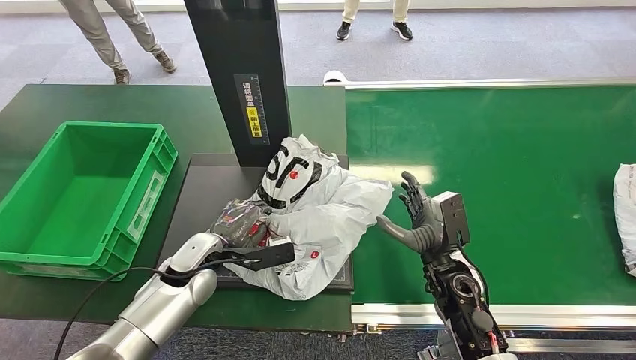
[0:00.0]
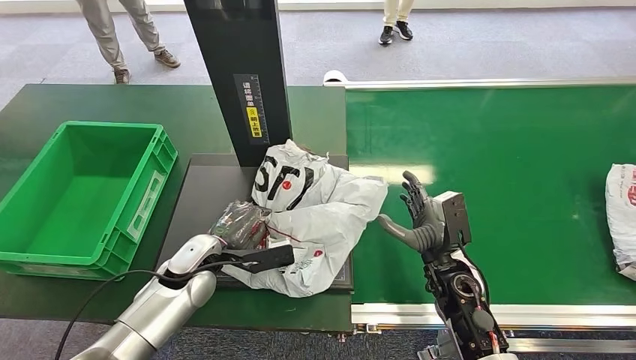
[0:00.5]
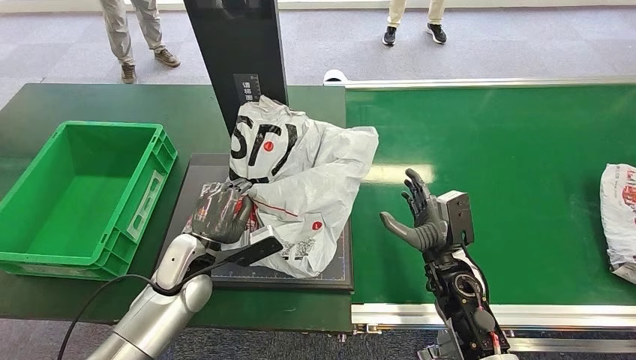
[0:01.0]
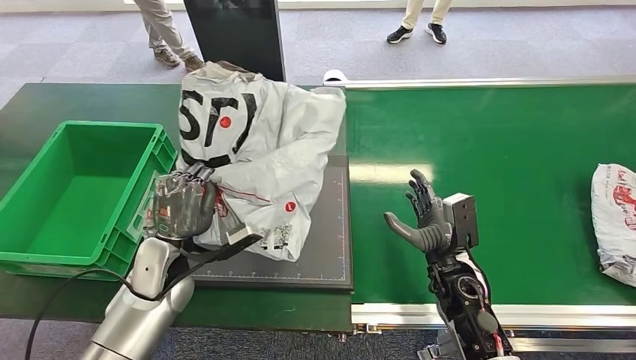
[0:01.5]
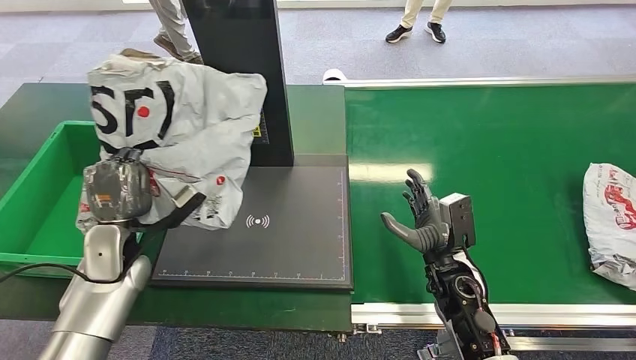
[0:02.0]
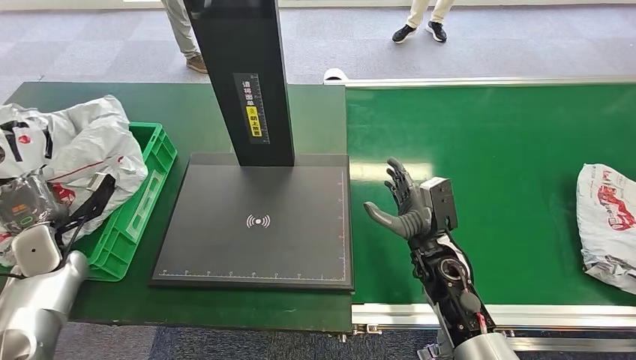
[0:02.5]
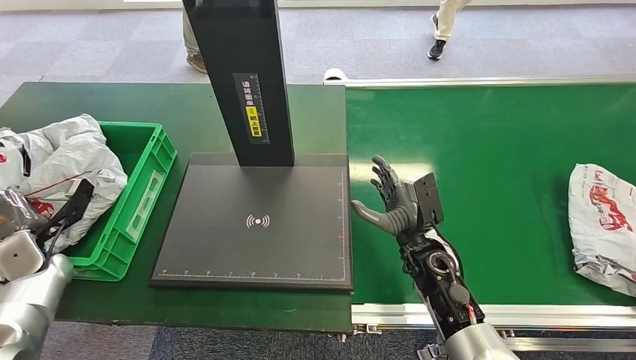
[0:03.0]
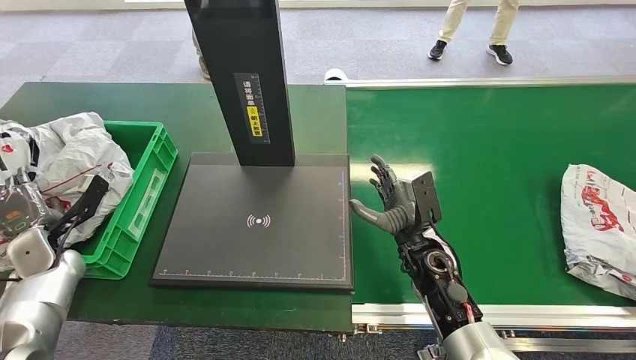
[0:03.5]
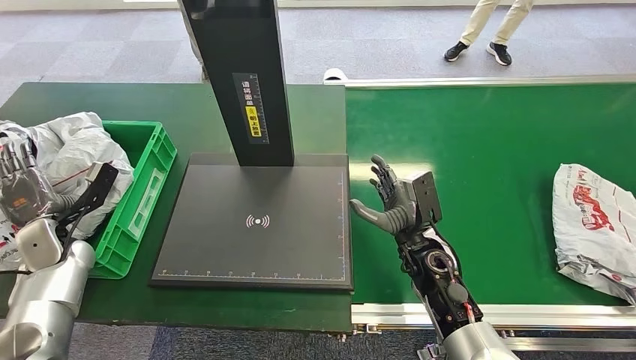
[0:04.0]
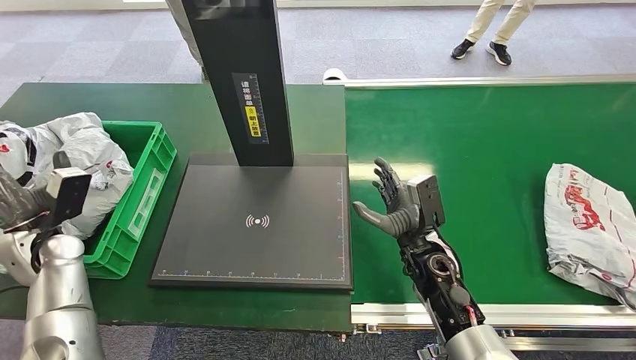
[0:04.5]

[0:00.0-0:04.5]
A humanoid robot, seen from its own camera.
Step, 0:02.0 to 0:04.5: Place the package into the parcel locker.

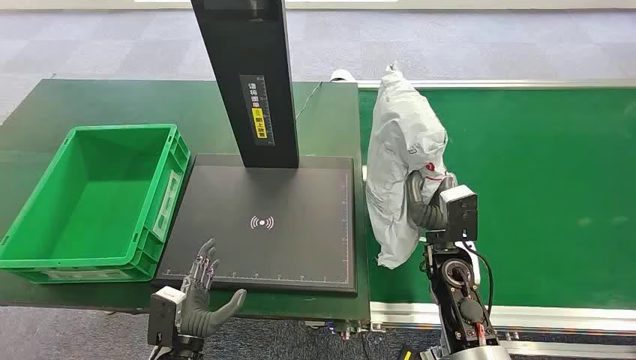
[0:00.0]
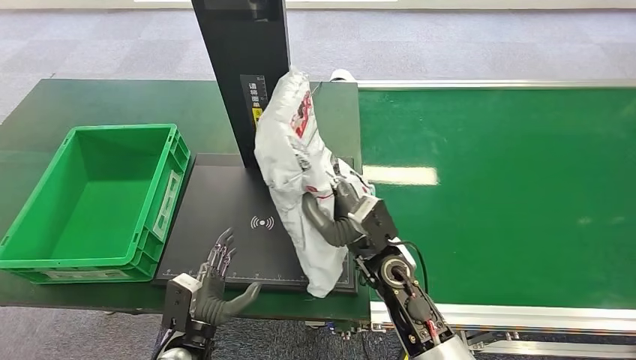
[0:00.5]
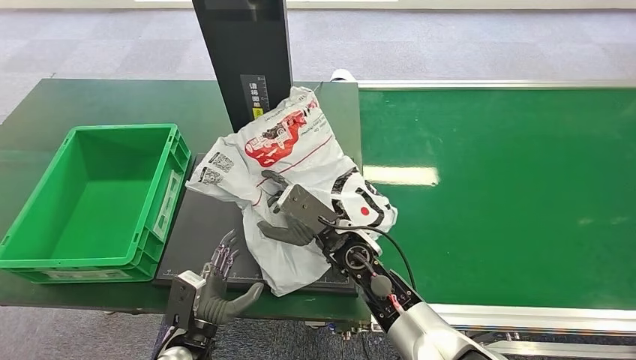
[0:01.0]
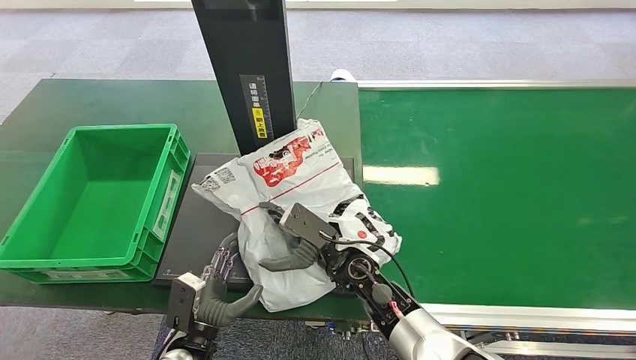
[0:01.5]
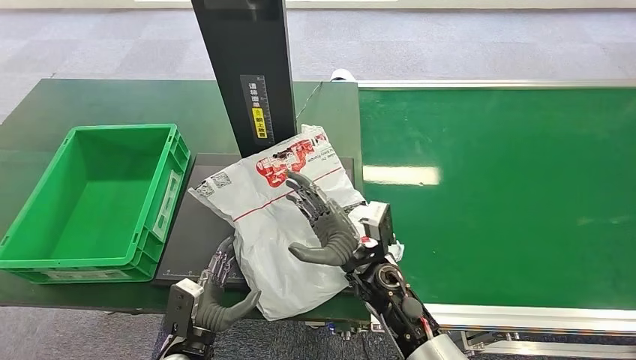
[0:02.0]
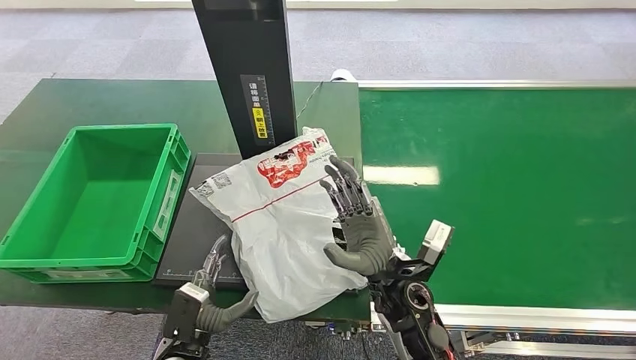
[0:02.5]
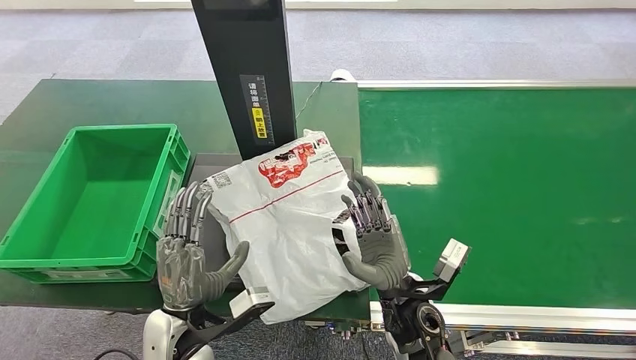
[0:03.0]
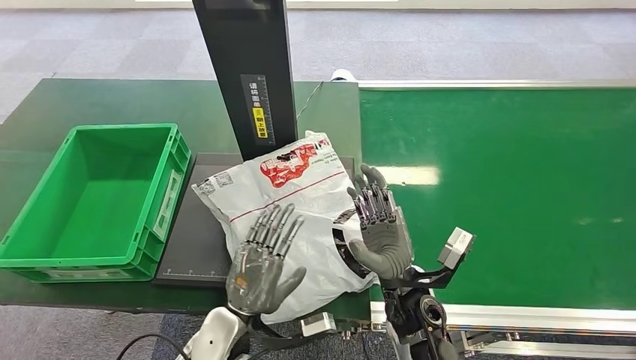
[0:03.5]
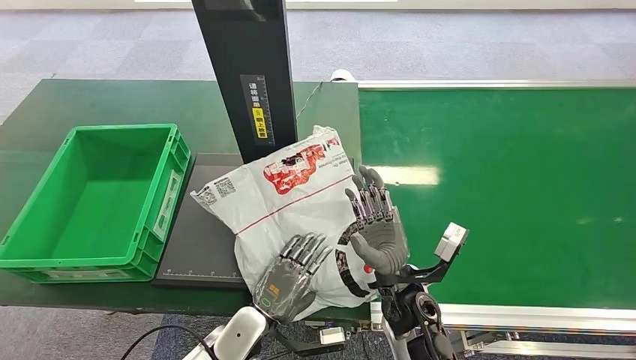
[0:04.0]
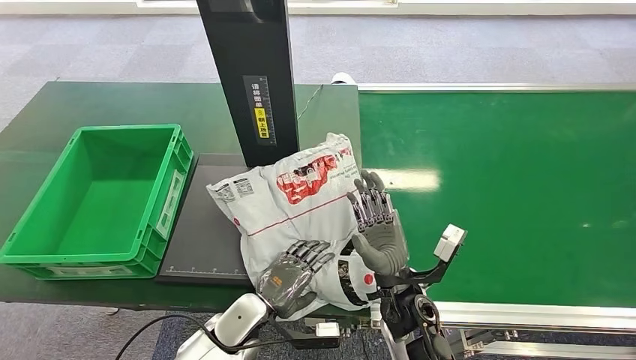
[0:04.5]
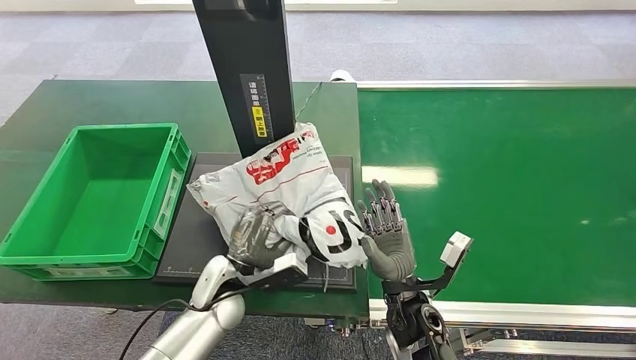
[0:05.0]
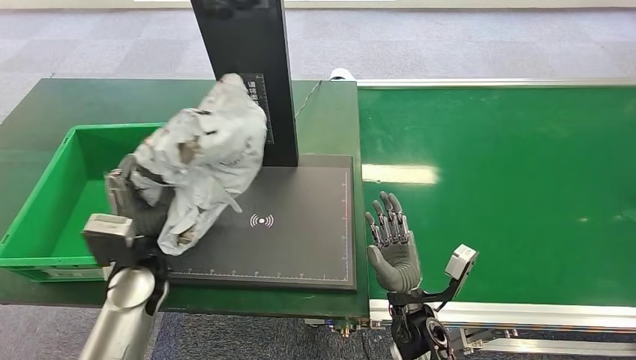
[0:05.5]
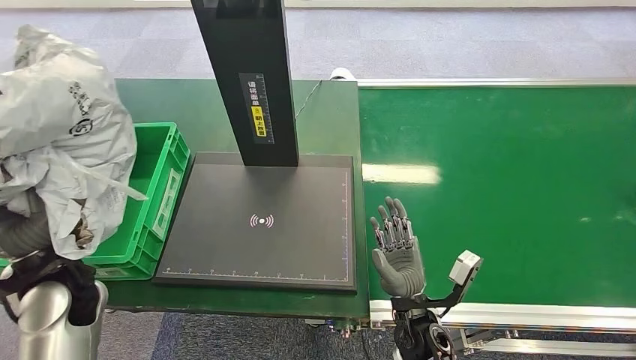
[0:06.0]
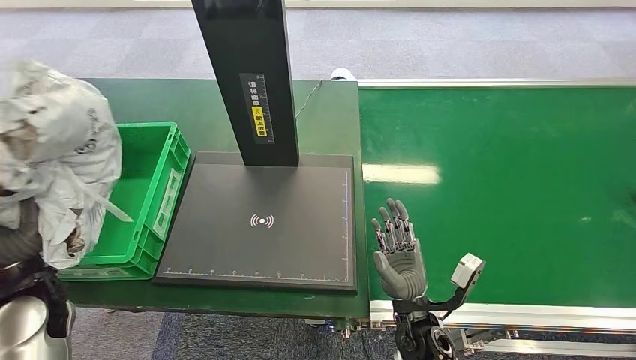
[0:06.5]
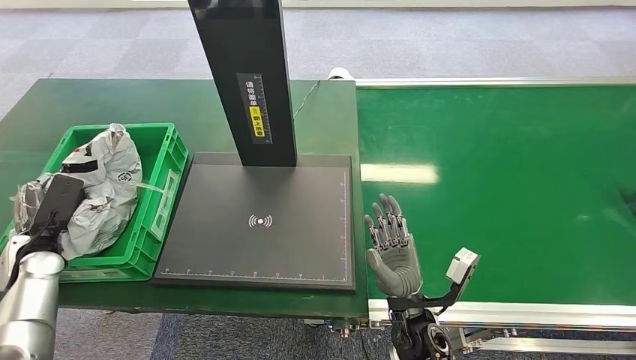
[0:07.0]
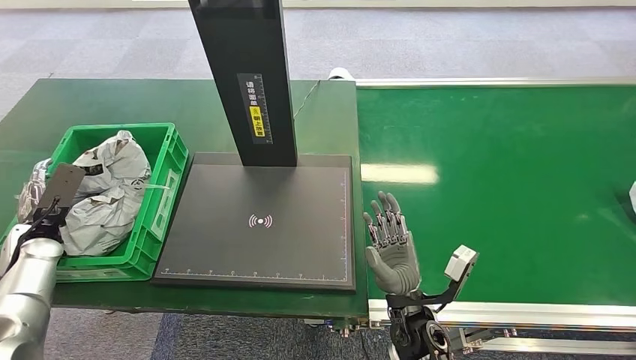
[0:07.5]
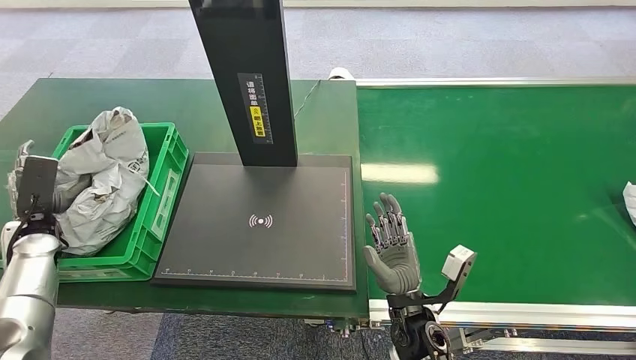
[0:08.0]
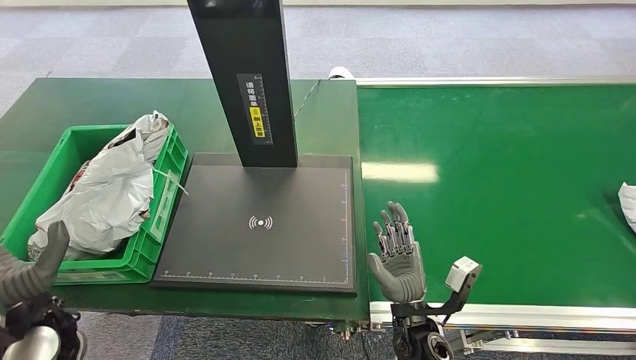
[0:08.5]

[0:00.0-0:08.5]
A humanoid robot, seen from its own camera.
Step, 0:08.0 to 0:08.5: Place the package into the parcel locker.
0:02.0 to 0:04.0: The left hand travels to the right by roughly 10 cm, and travels upward and back again, roughly 10 cm each way; the right hand changes place by some 5 cm.
0:06.5 to 0:08.5: The left hand travels to the left and back again, about 10 cm each way.
